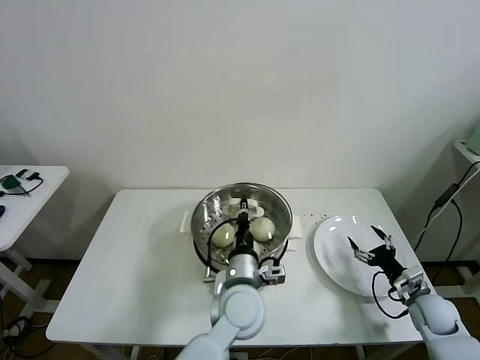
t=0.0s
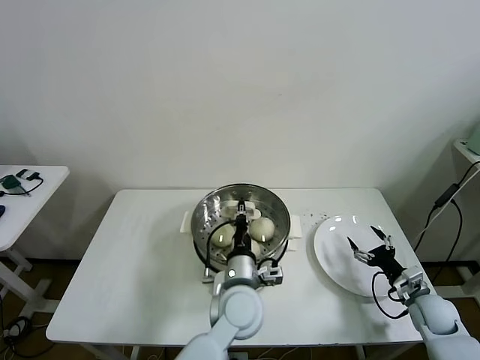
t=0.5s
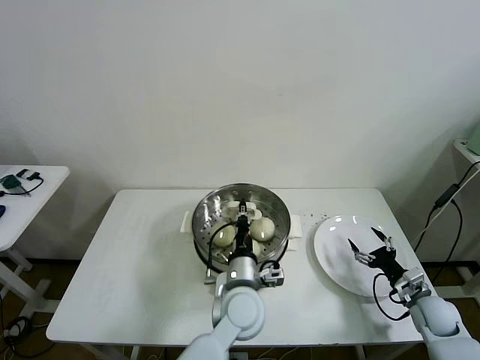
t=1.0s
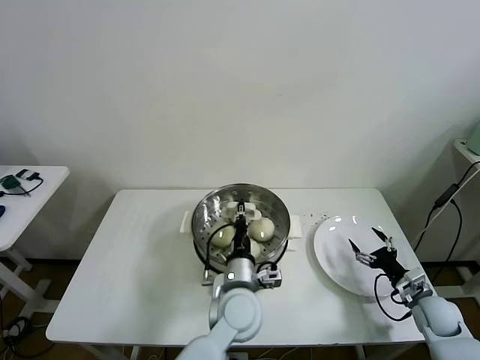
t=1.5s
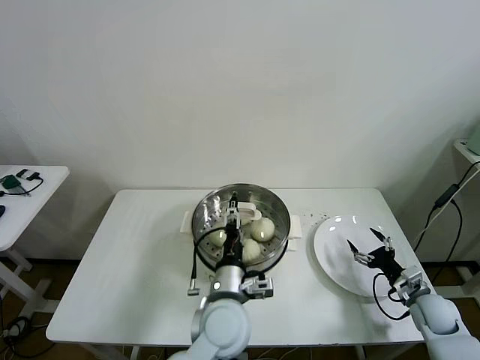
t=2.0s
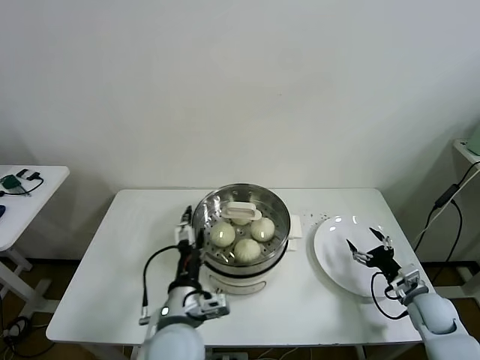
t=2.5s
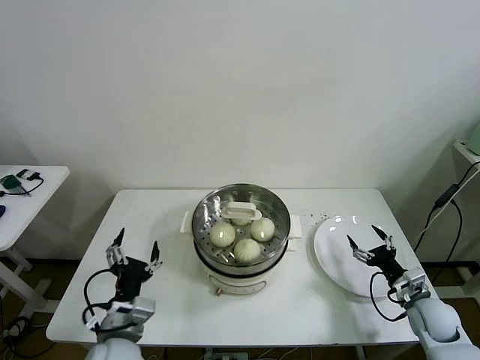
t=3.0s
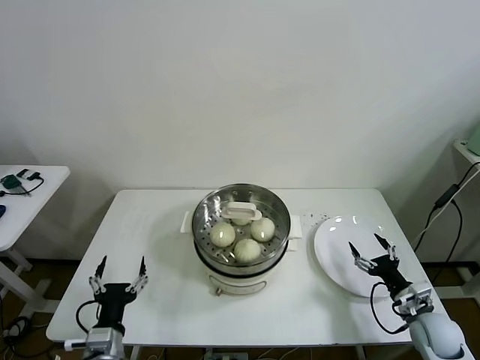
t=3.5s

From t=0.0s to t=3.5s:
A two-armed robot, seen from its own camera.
Task of the whole recording: take steamed baozi put them in steamer then cover it.
From t=0.0s to t=2.0s: The left gripper opens its fingers.
From t=2.0s to t=3.5s: The left gripper heads to the left and backward, covering some 25 cm; the right gripper changes place by approximately 5 cm.

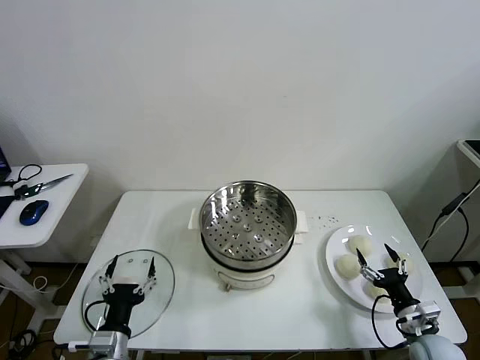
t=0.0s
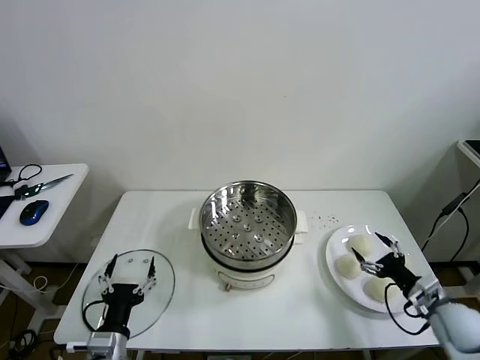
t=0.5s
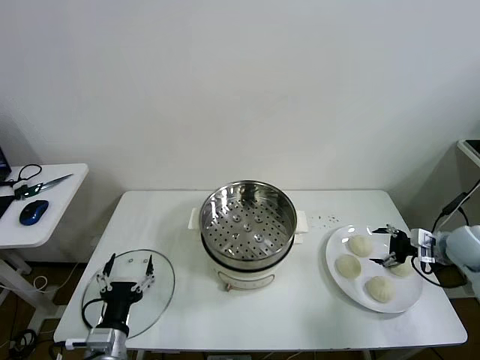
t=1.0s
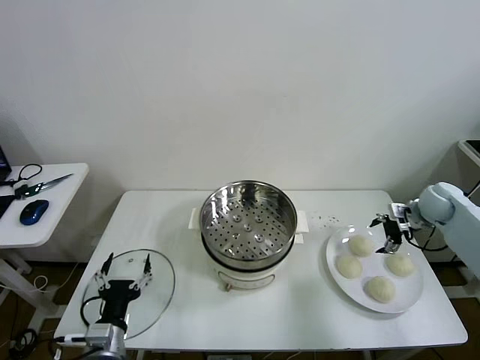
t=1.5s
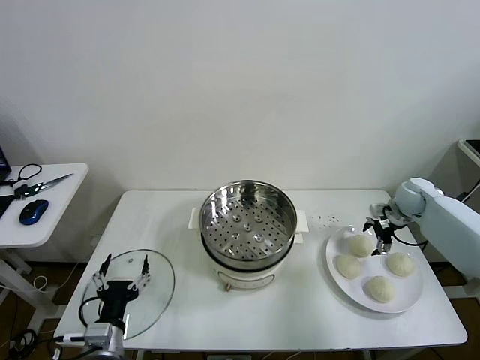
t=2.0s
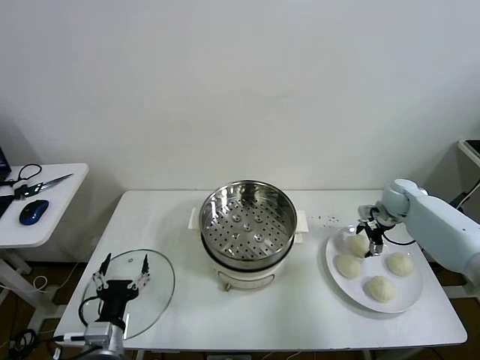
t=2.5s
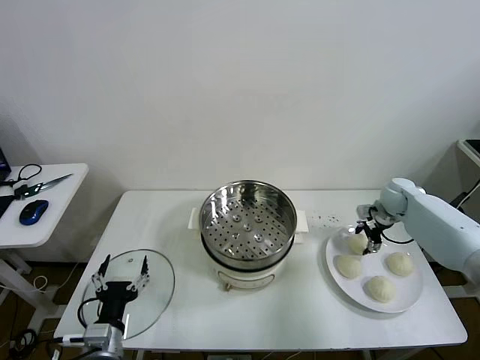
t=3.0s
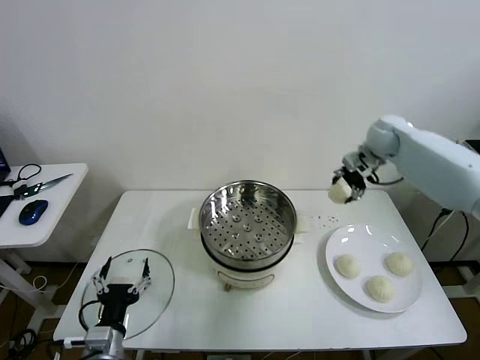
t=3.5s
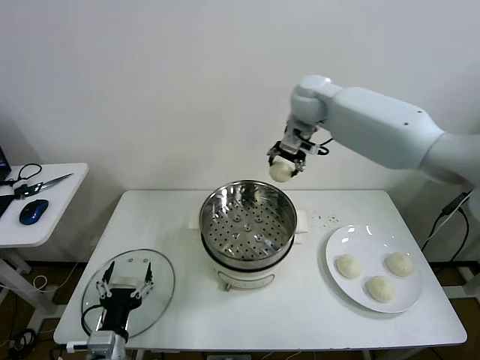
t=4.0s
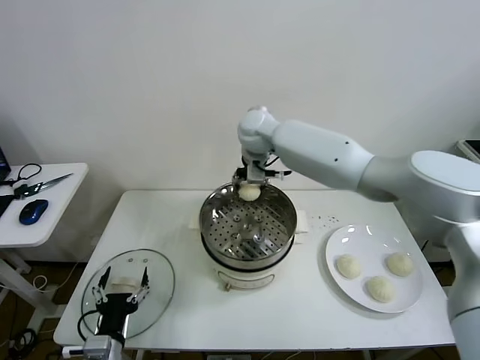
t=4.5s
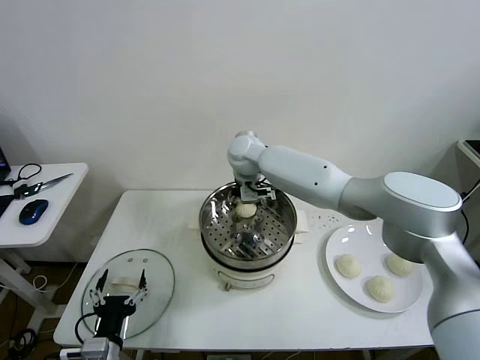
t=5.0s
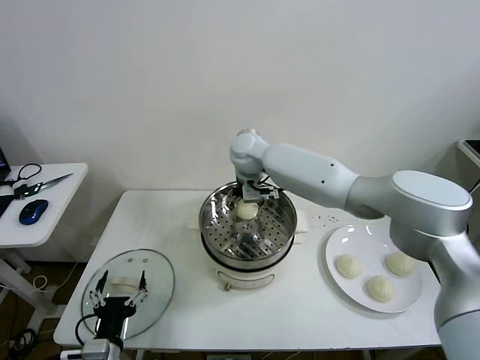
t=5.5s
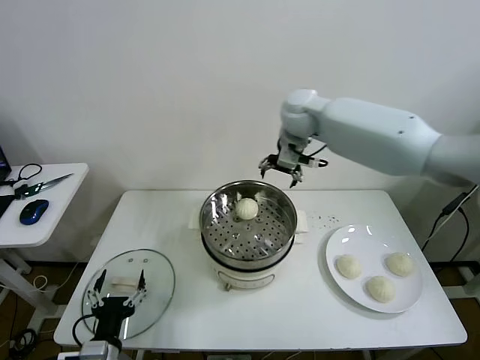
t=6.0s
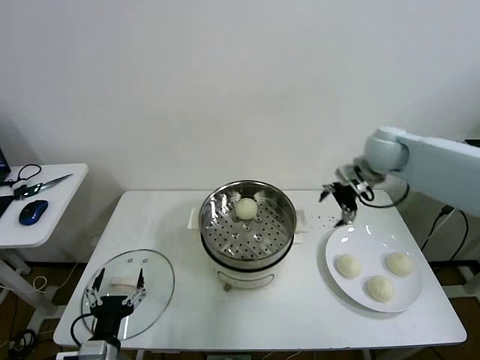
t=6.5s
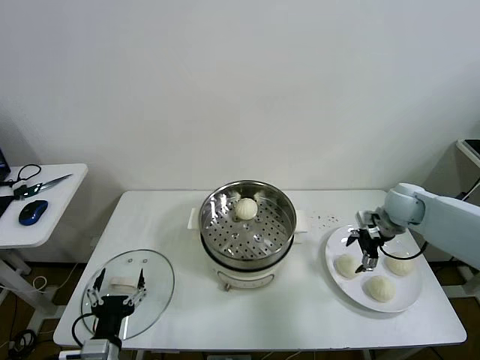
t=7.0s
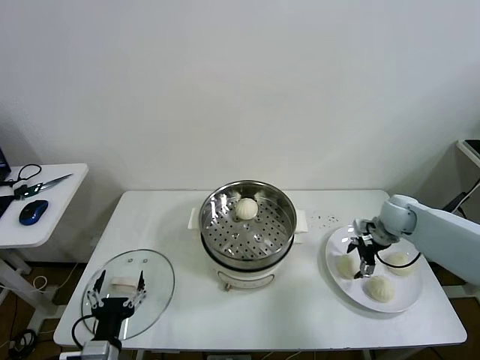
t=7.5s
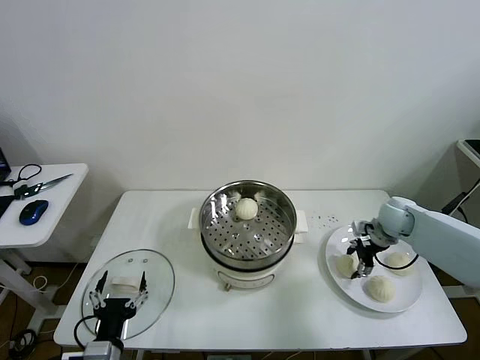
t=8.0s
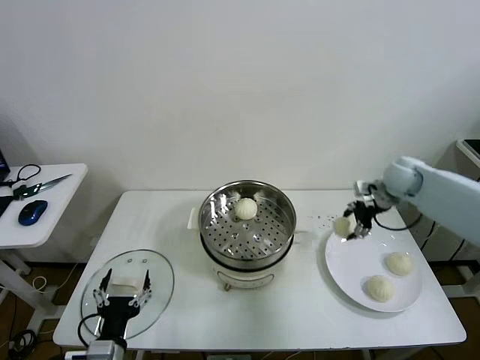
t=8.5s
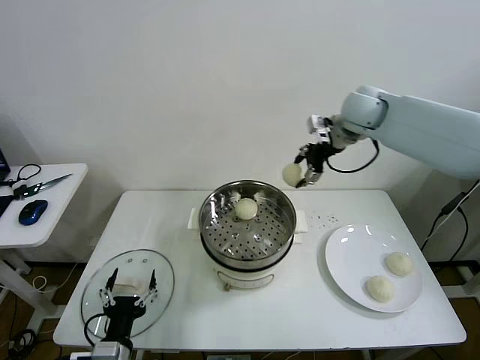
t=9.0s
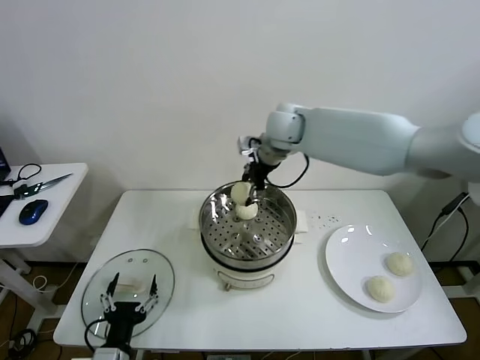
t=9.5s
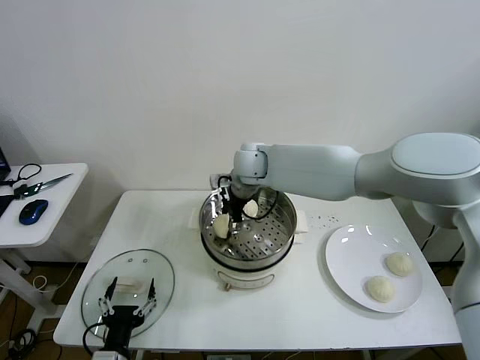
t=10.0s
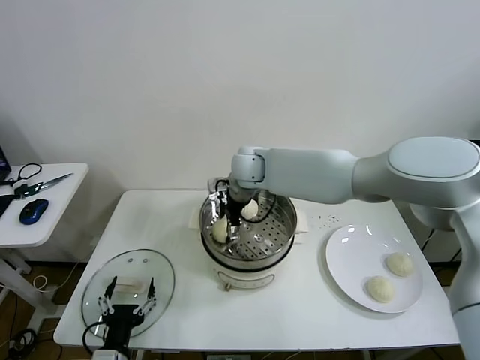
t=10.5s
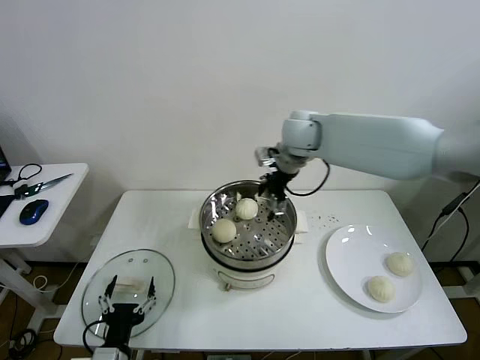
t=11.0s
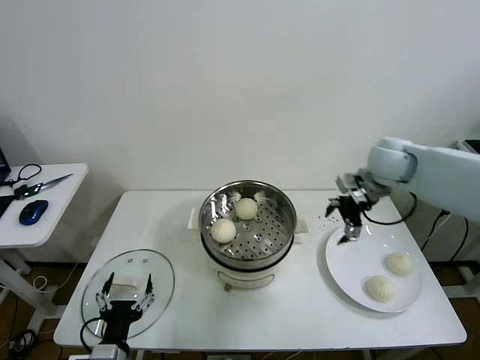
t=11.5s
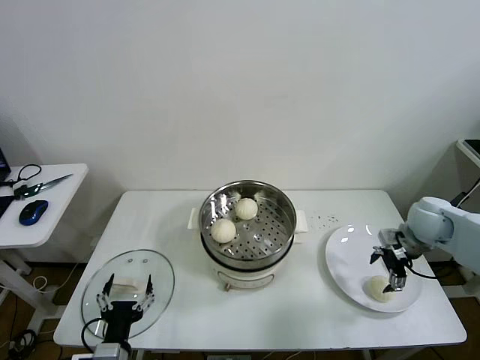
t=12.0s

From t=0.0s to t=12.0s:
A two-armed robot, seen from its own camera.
Task of the whole recording: take steamed baozi put them in steamer then cover it.
Step, from t=0.0s to t=3.0s: Grasp the baozi in the plate with right gripper.
Step, from t=3.5s to t=5.5s: Place the baozi on the steamer with right gripper.
Step, from t=6.0s to t=8.0s: Grasp the baozi in the plate with right gripper.
Step, from t=8.5s to t=10.0s: Place the baozi on the steamer with right gripper.
From t=2.0s to t=4.0s: The right gripper is displaced to the left and upward by roughly 40 cm, and closes up.
From t=4.0s to t=6.0s: The right gripper moves roughly 10 cm to the left and comes back, and opens up.
From t=6.0s to t=8.0s: The right gripper heads downward and to the right, covering about 35 cm, and closes up.
From t=8.0s to t=10.0s: The right gripper heads to the left, covering about 40 cm.
From t=10.0s to t=12.0s: The right gripper goes some 40 cm to the right, and opens.

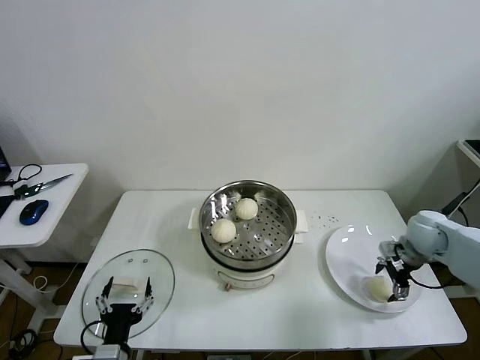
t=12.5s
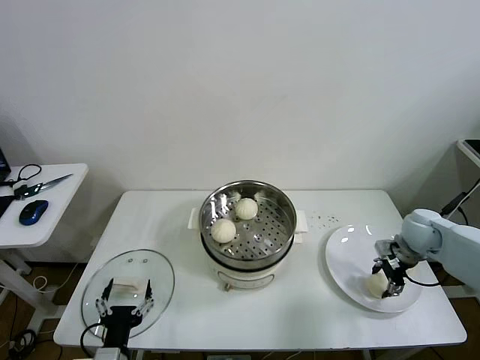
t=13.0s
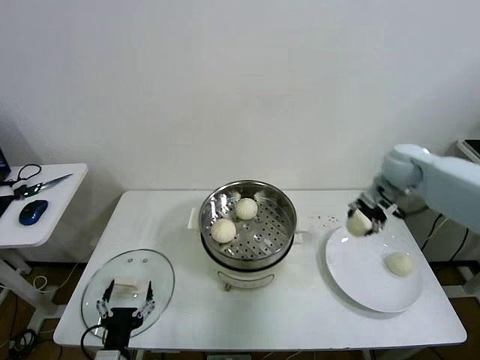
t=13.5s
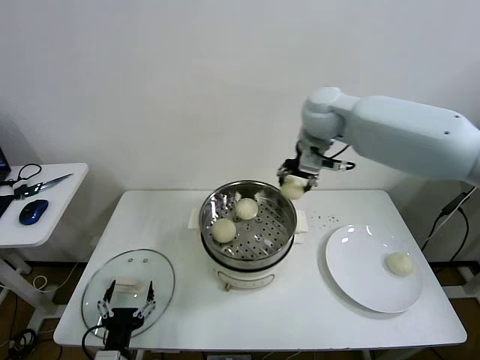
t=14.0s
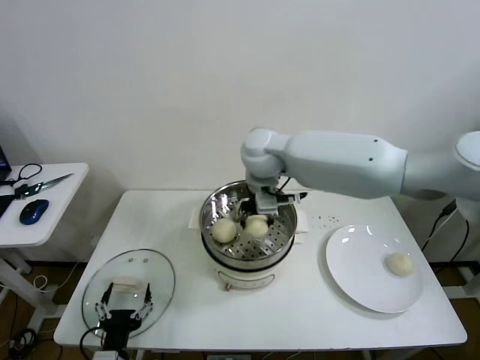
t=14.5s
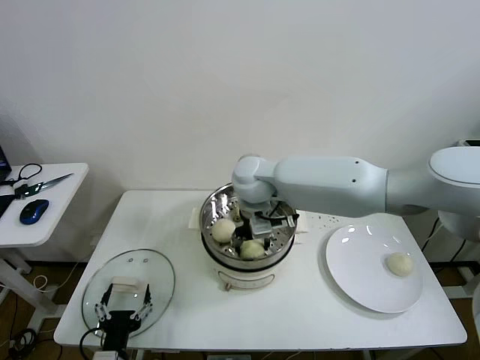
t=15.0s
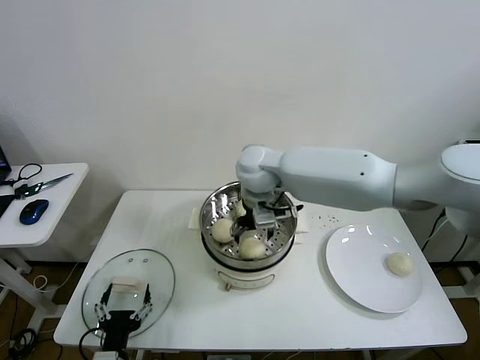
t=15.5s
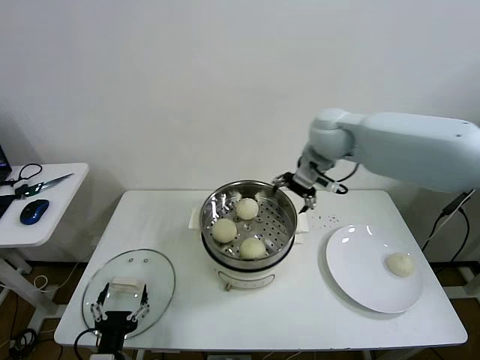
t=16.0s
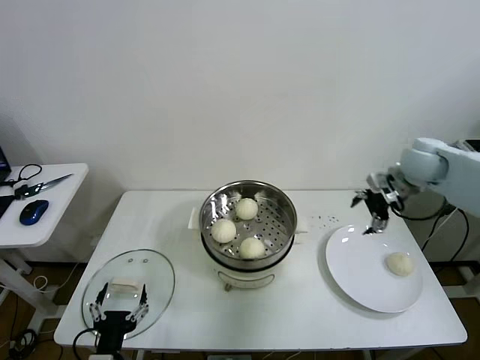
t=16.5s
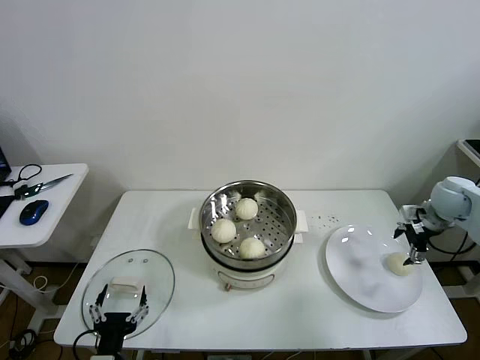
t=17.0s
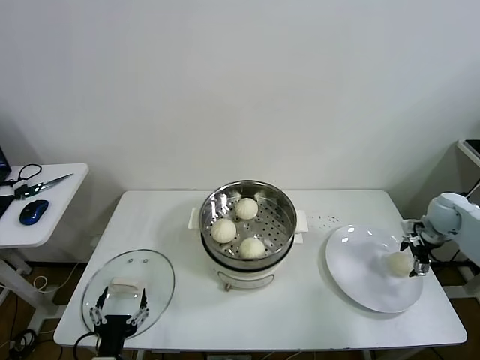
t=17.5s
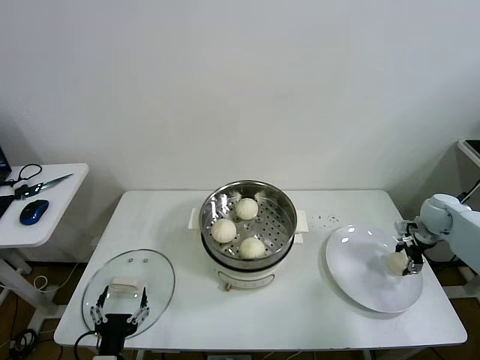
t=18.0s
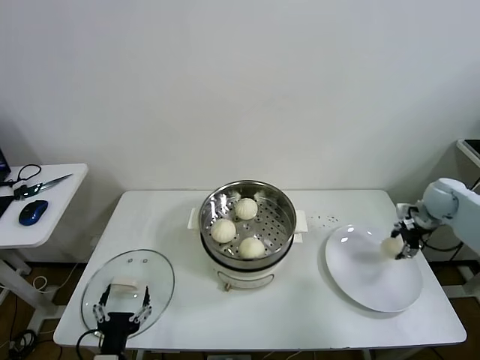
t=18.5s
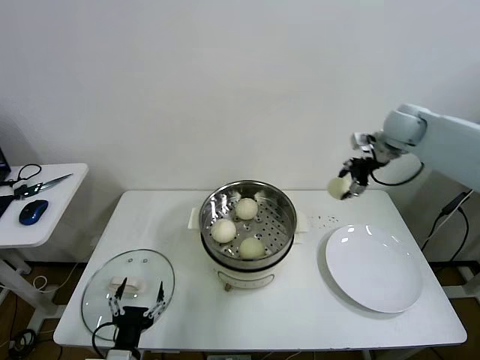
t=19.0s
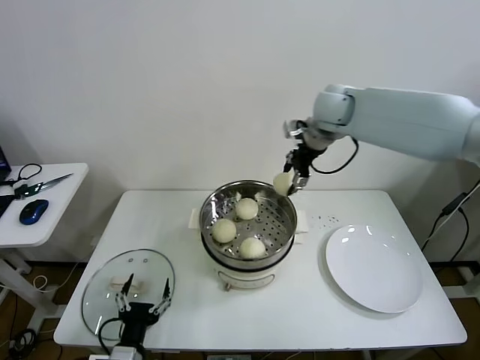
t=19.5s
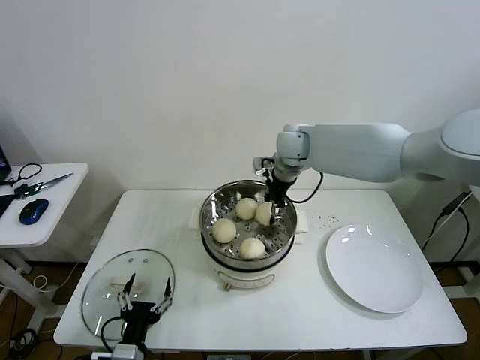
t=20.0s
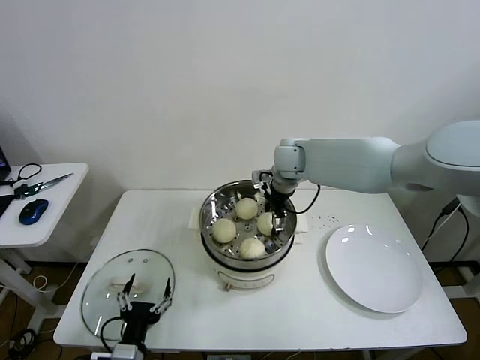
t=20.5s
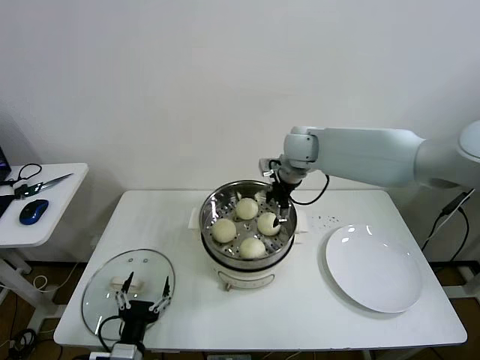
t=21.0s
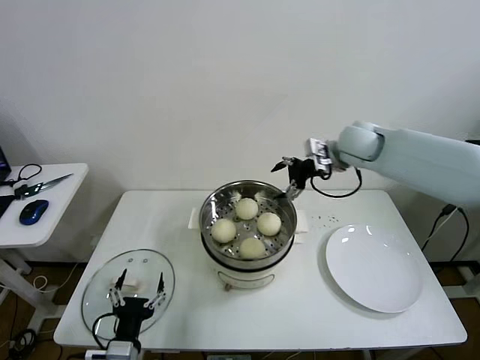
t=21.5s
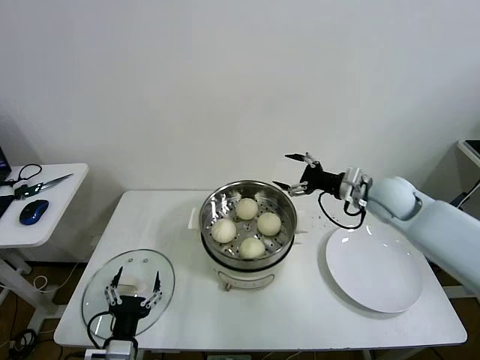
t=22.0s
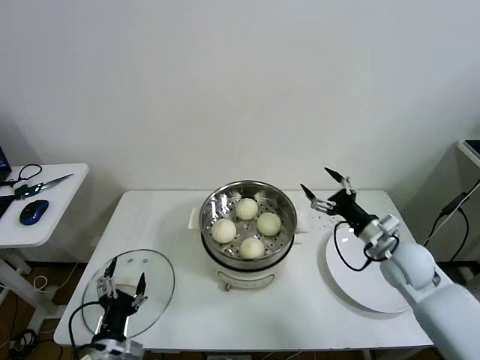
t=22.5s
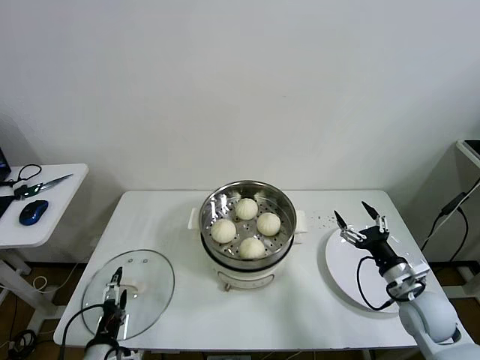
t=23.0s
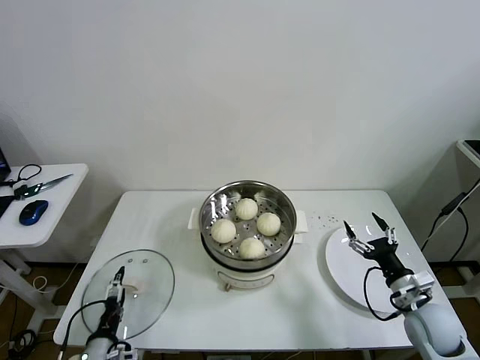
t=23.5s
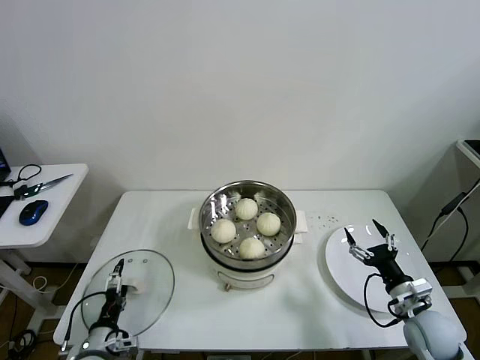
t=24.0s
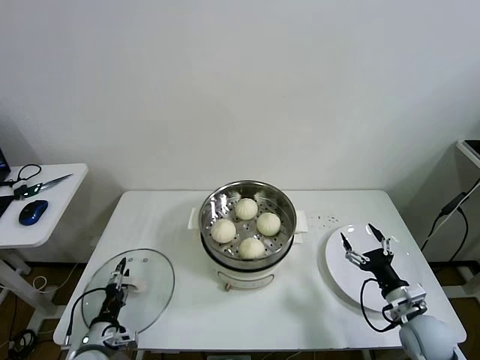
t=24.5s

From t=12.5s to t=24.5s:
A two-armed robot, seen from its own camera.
Task of the whole recording: take steamed baozi put them in steamer then cover it.
Step, from t=13.5s to t=15.0s: Place the baozi on the steamer with right gripper.
Step, from t=15.5s to t=18.0s: Grasp the baozi in the plate with right gripper.
Step, from t=18.5s to t=20.5s: Place the baozi on the steamer with right gripper.
From t=12.5s to t=14.5s: The right gripper travels to the left and upward by some 40 cm, and closes.
From t=14.5s to t=16.5s: The right gripper moves to the right, approximately 35 cm, and opens its fingers.
From t=16.5s to t=18.5s: The right gripper moves downward and to the right, roughly 15 cm, and closes.
From t=18.5s to t=20.5s: The right gripper heads to the left, covering approximately 40 cm, and opens up.
From t=20.5s to t=22.5s: The right gripper shifts approximately 35 cm to the right, backward and downward.
From t=22.5s to t=24.5s: The right gripper moves downward and backward, about 15 cm. The left gripper goes roughly 15 cm downward, to the left and forward, and closes up.
